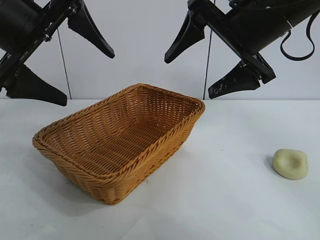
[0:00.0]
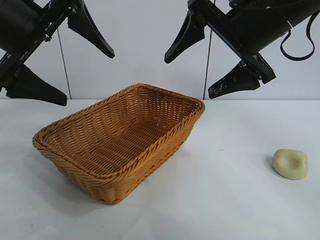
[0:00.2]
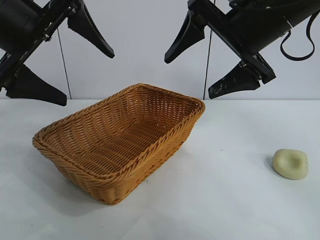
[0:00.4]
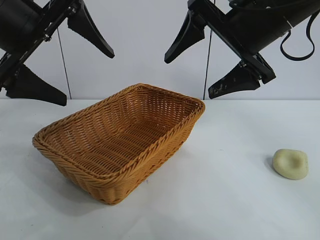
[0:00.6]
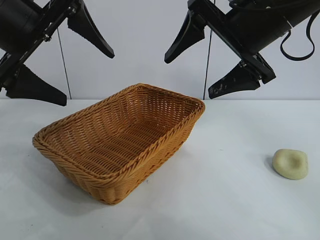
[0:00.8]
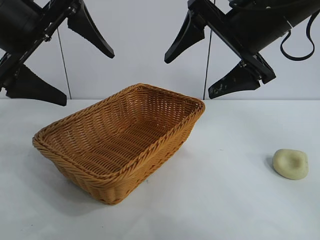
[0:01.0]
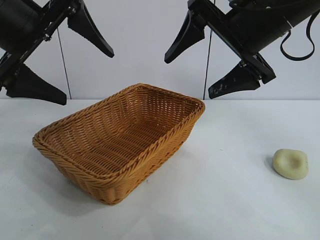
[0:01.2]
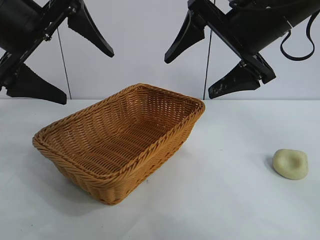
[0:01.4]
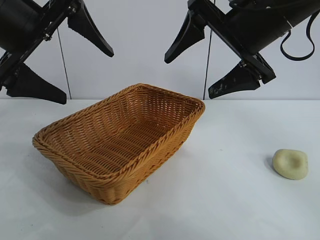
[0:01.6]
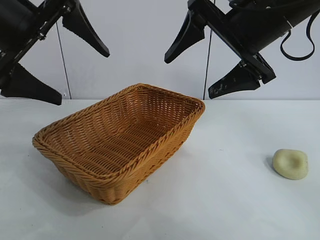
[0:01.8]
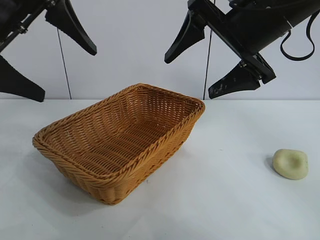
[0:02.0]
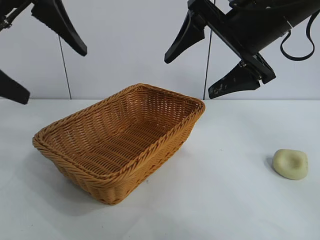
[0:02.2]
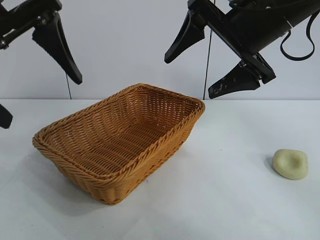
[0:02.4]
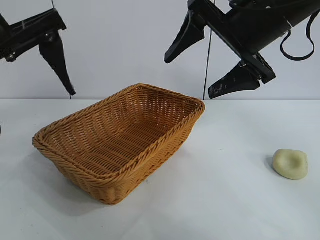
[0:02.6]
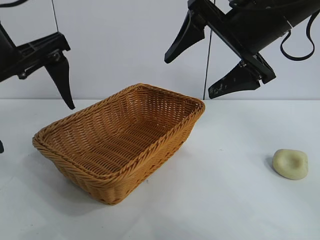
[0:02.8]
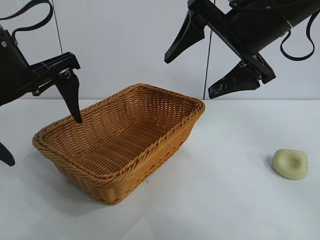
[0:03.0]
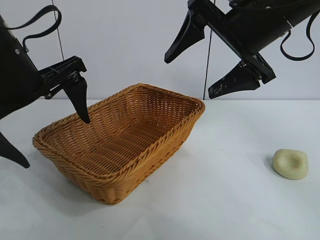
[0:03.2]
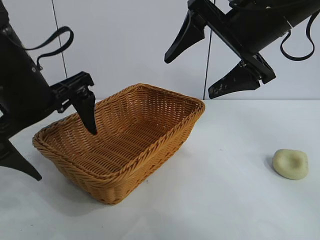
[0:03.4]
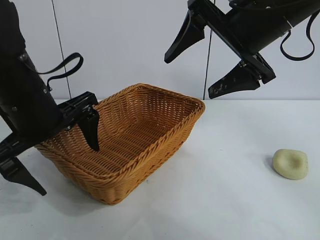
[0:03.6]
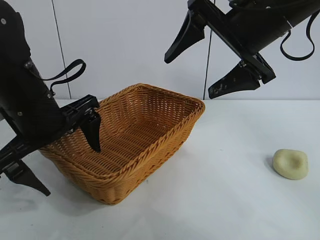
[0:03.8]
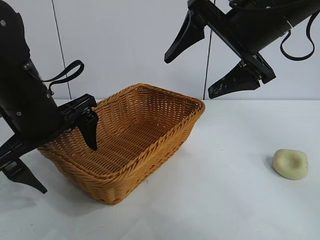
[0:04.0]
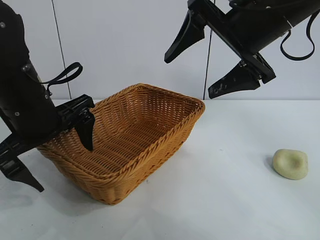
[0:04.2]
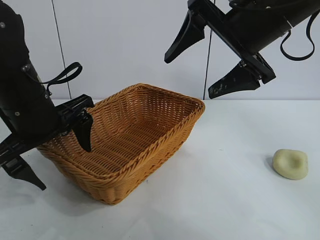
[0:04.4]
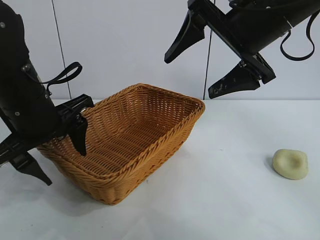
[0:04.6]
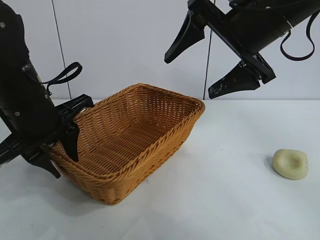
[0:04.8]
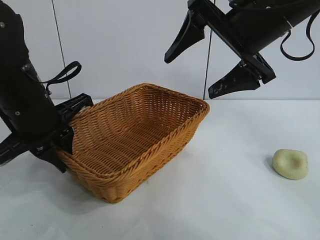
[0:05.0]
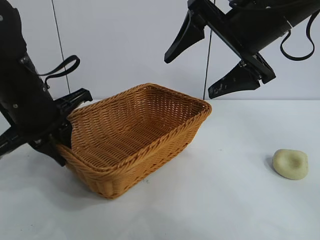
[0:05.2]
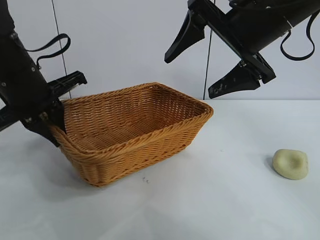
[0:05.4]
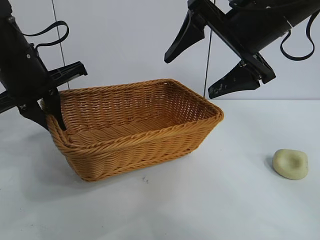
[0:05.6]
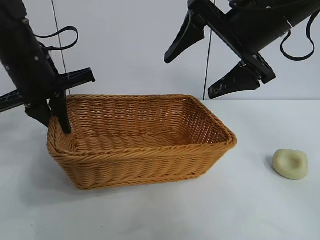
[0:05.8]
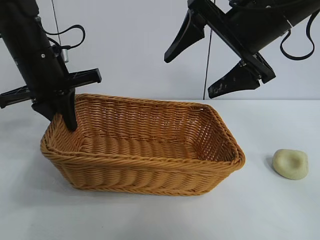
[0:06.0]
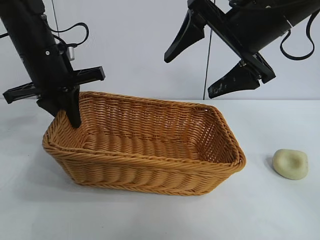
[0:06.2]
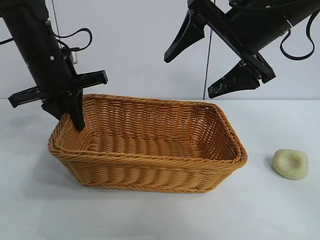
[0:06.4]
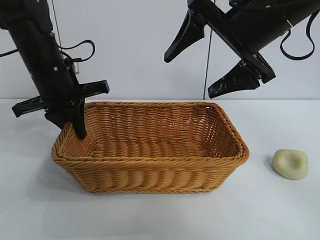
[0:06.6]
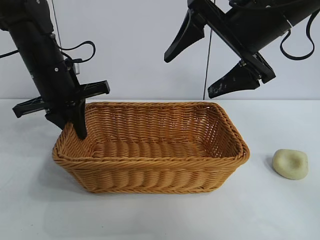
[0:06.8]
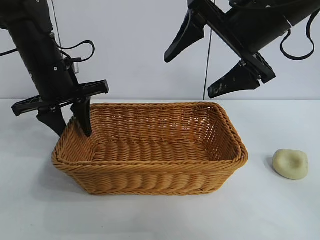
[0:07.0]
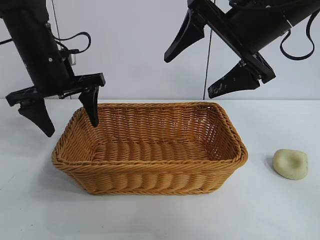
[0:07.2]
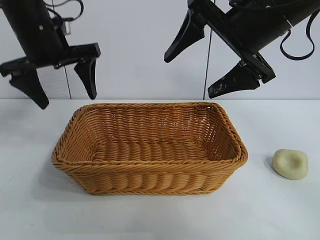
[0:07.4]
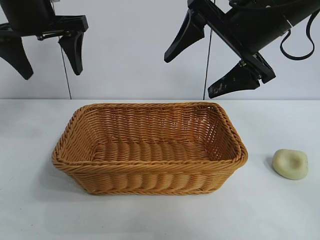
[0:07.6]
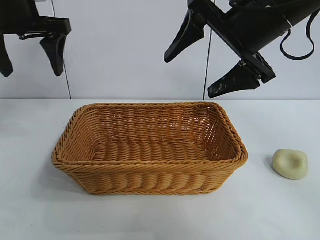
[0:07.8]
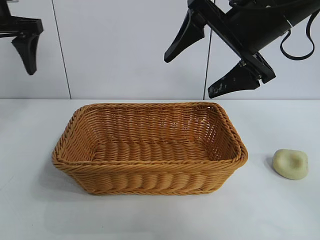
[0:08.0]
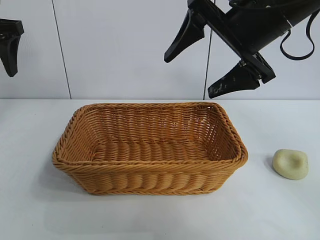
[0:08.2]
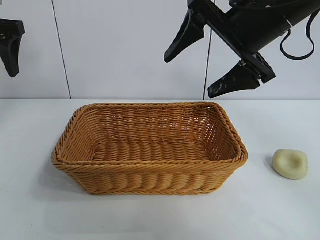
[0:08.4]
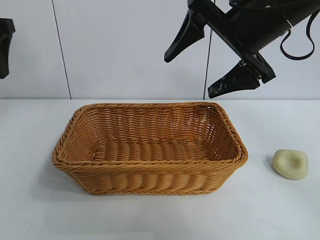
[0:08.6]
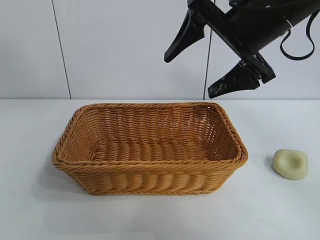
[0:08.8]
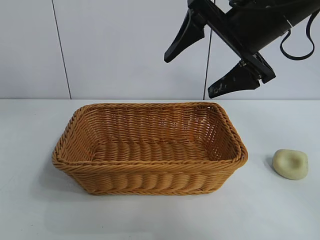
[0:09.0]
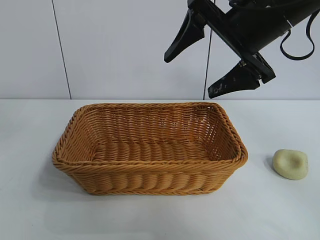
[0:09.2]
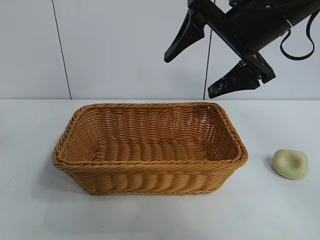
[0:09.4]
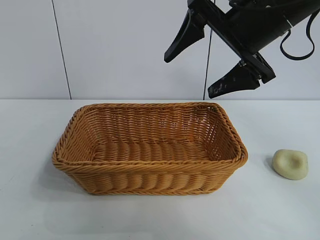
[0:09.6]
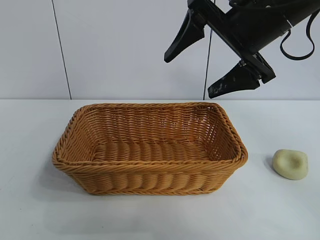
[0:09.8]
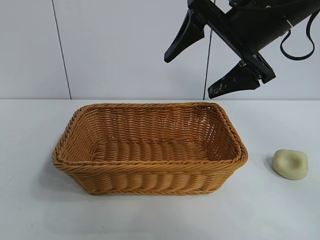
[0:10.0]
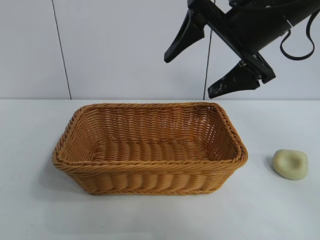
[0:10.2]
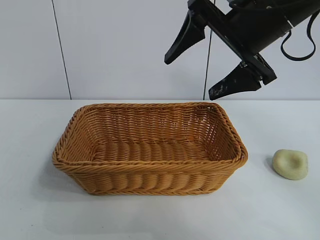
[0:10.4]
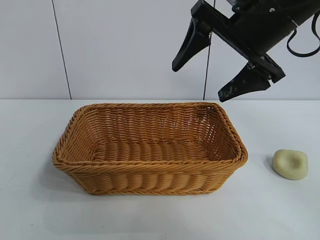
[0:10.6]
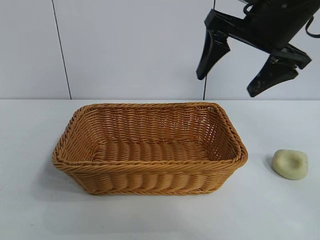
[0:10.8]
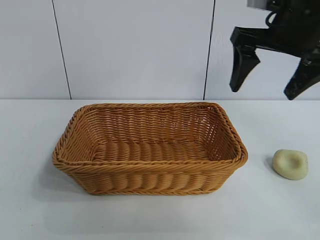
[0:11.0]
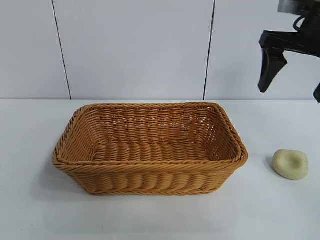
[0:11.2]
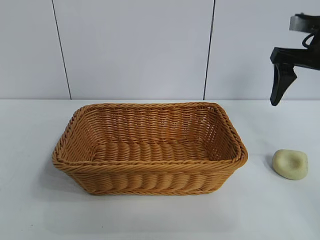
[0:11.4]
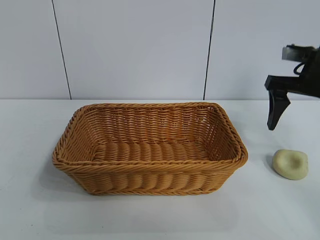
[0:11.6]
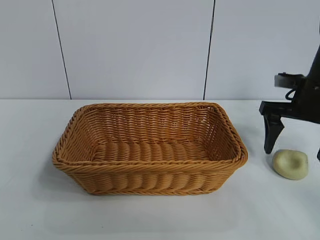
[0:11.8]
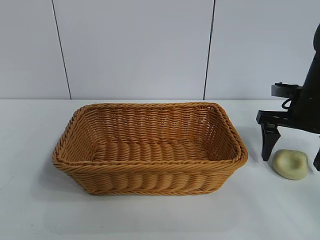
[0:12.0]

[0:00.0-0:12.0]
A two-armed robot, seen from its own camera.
Task of the whole recording: pick up the egg yolk pastry and put it into the basket.
Step, 0:01.2 to 0:05.0: Grasp the basket with left gripper.
Step, 0:05.2 to 0:07.0: Place the basket in the center of view with left gripper.

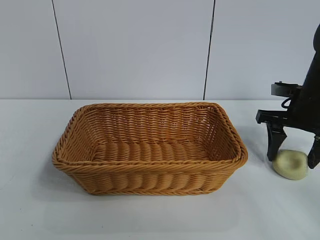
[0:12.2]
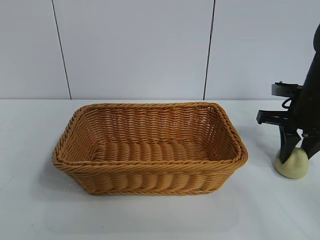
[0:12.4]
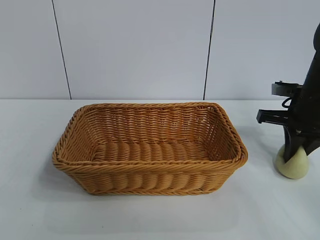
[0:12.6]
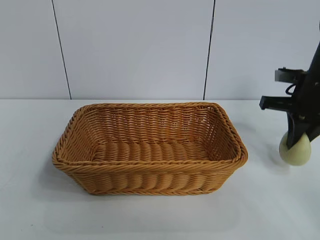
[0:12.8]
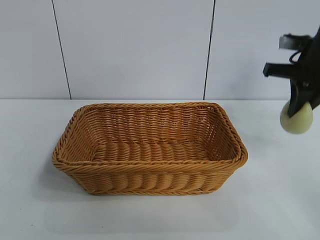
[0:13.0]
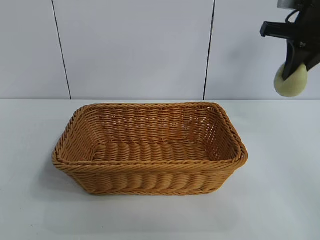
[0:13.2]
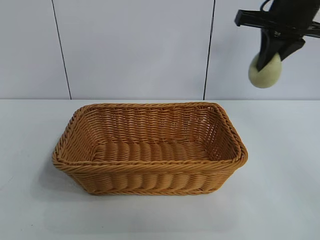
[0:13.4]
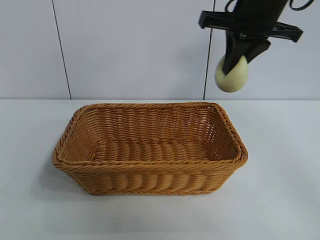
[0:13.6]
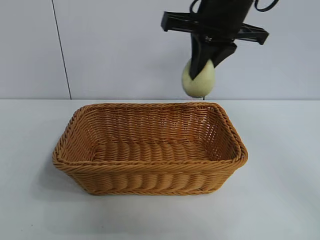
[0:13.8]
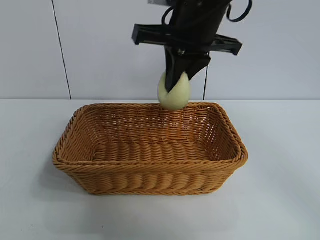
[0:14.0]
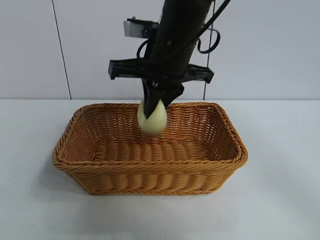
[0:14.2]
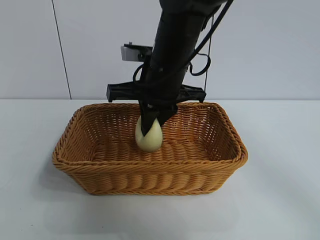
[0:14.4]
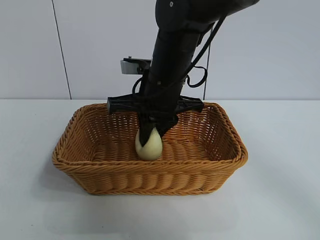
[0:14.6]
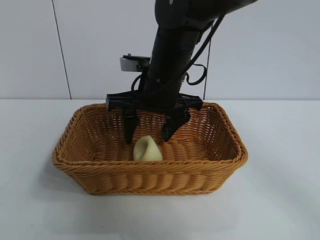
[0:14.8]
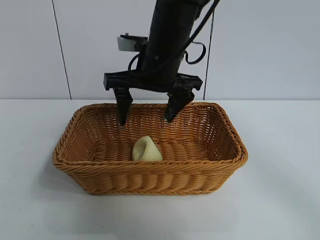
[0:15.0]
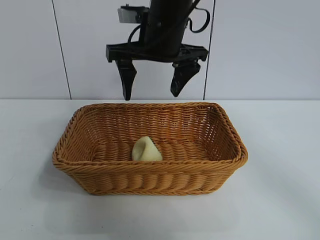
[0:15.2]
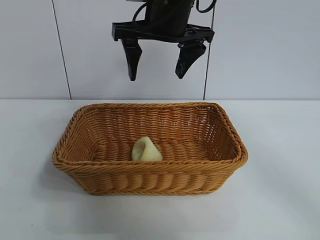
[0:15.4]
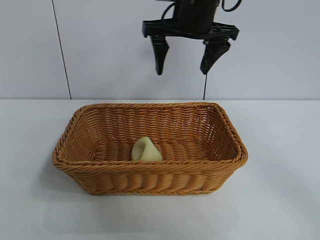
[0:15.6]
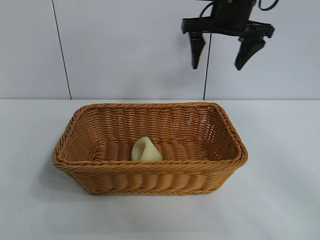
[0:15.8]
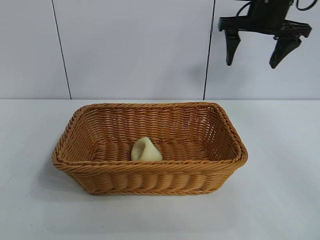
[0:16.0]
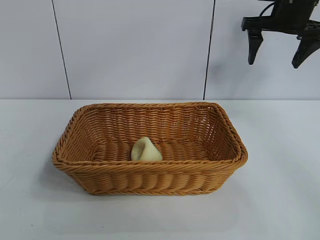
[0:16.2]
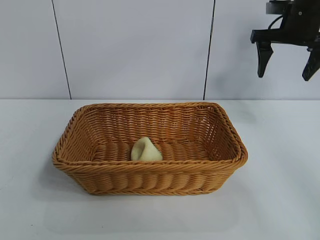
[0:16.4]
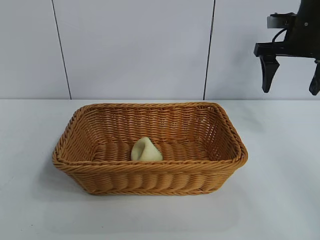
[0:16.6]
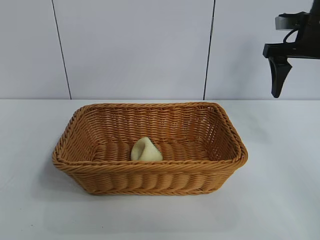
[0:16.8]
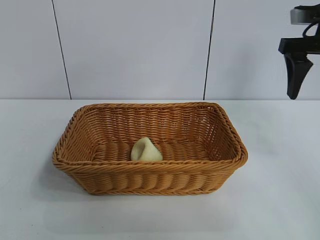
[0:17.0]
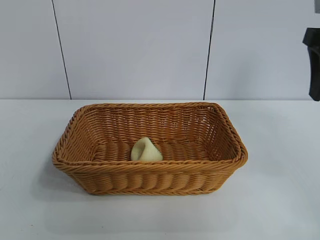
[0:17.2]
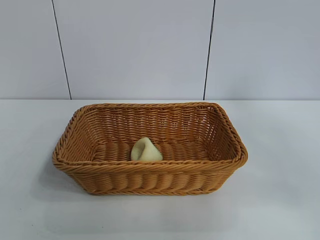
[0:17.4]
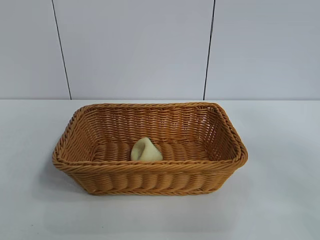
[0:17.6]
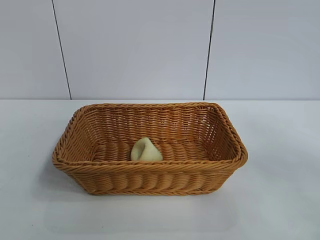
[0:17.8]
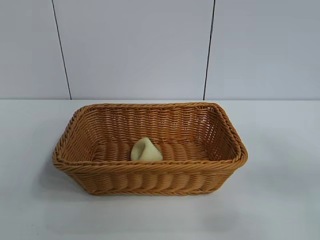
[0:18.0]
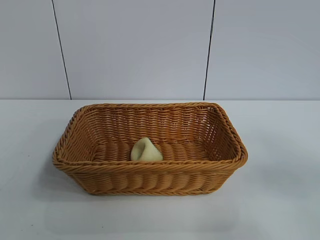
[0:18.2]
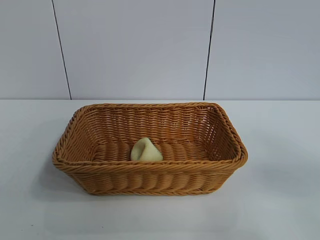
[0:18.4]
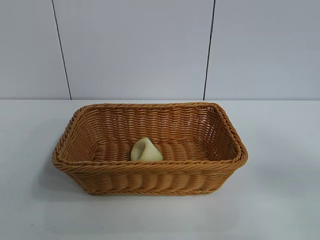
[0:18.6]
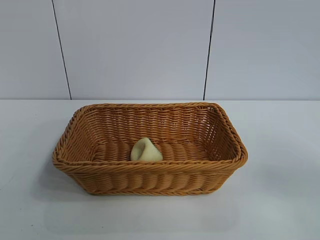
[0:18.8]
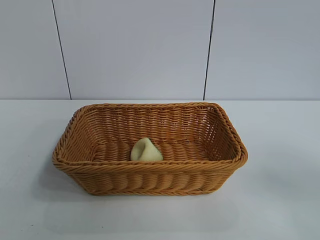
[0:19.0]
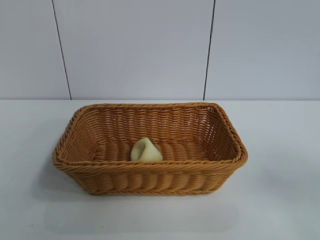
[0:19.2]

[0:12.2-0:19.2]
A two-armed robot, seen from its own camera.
Task of the whole recording: pick up the egg yolk pastry and put it into the basket.
Step, 0:12.6 to 0:14.8: Place the egg yolk pastry in the basket with right gripper.
